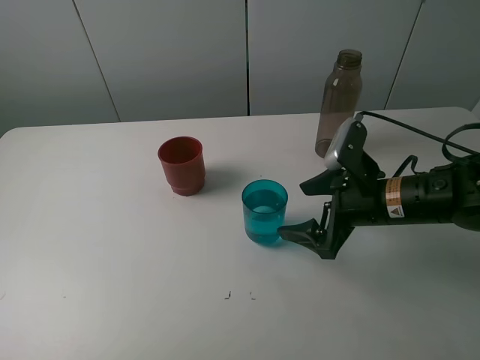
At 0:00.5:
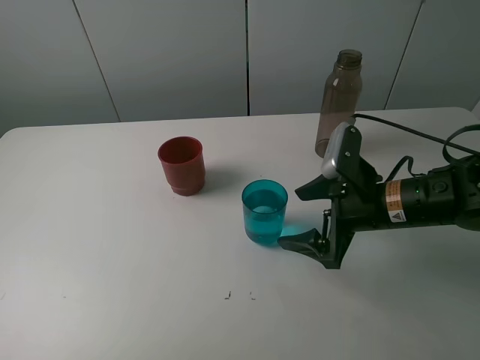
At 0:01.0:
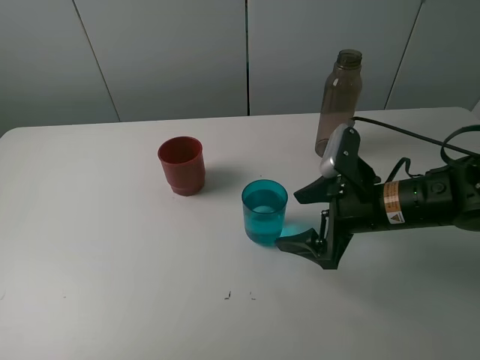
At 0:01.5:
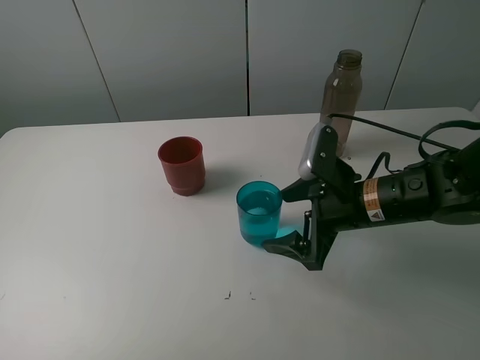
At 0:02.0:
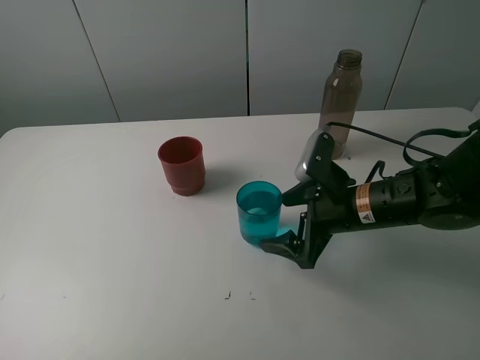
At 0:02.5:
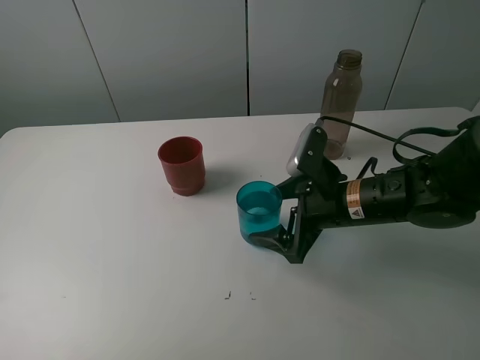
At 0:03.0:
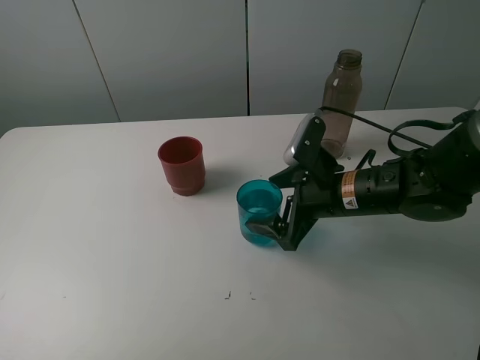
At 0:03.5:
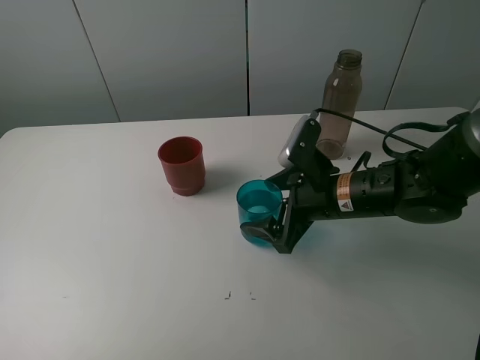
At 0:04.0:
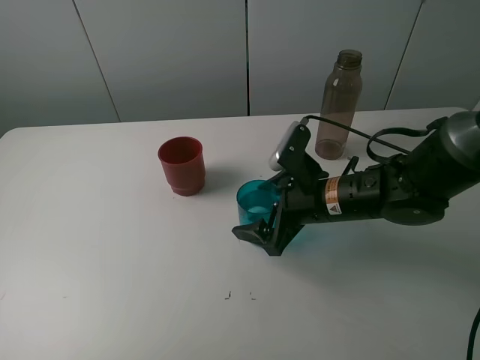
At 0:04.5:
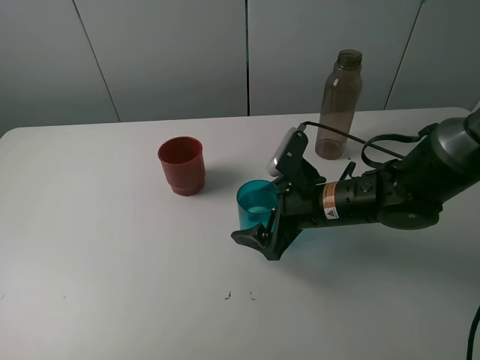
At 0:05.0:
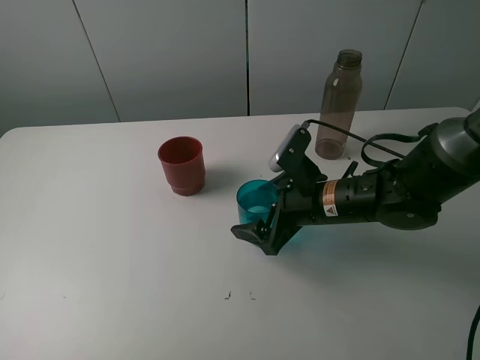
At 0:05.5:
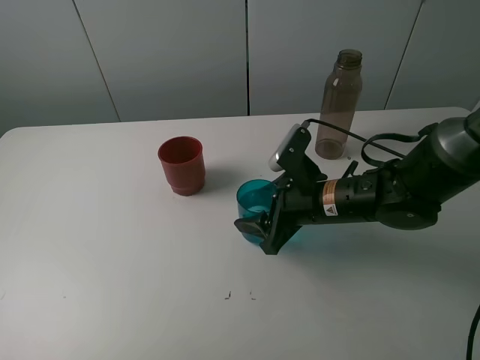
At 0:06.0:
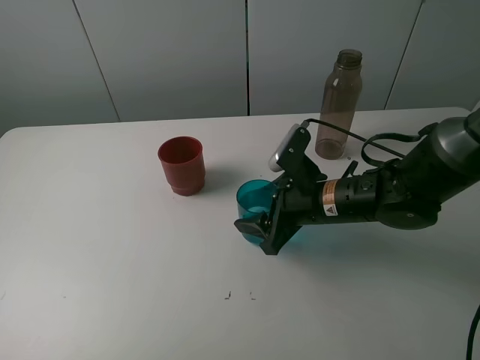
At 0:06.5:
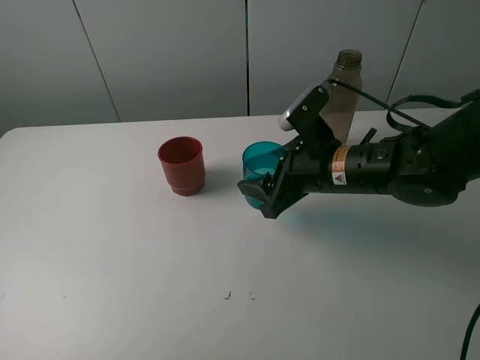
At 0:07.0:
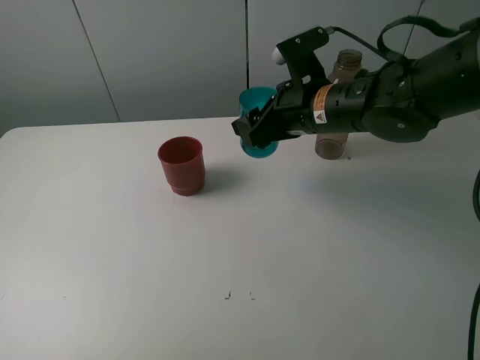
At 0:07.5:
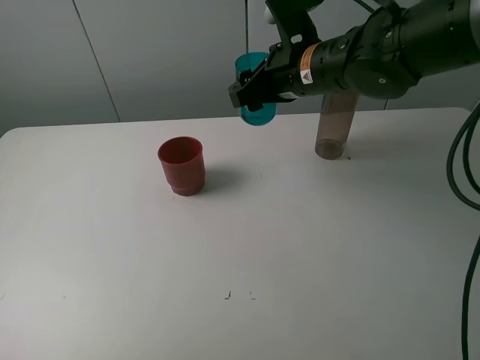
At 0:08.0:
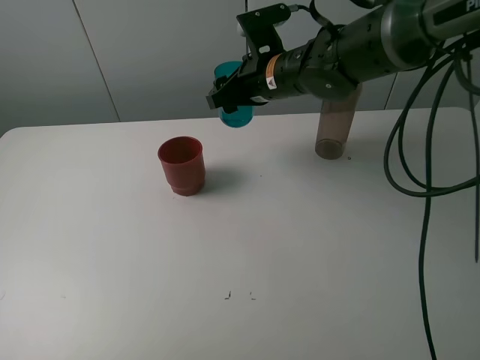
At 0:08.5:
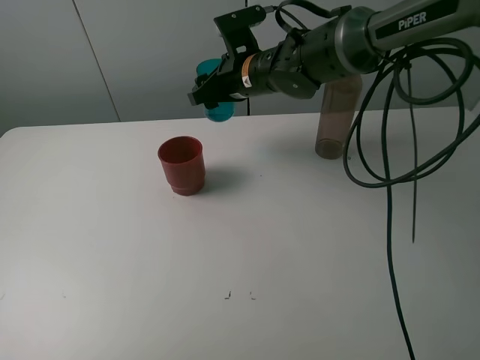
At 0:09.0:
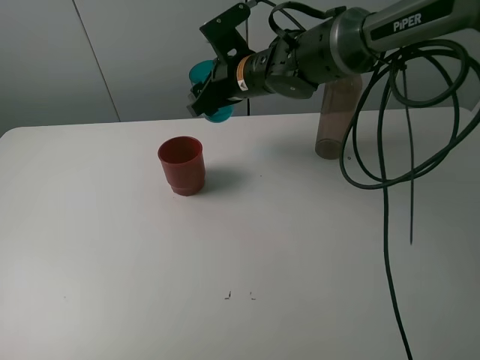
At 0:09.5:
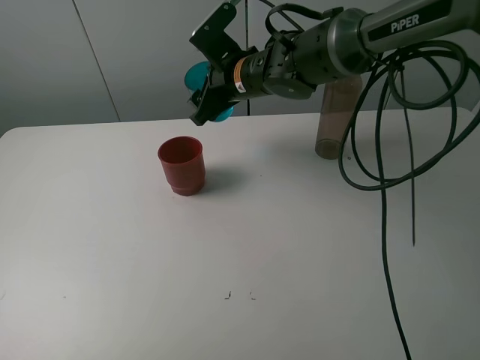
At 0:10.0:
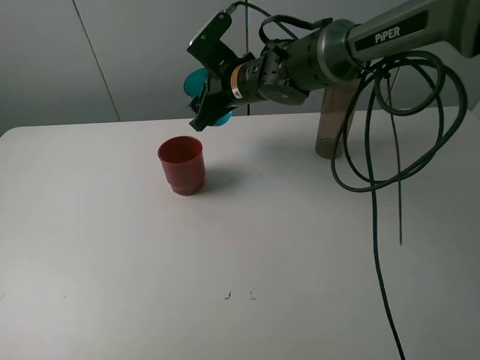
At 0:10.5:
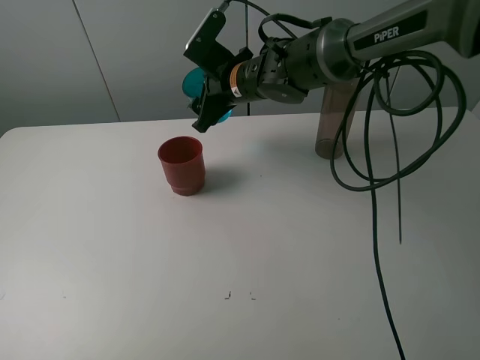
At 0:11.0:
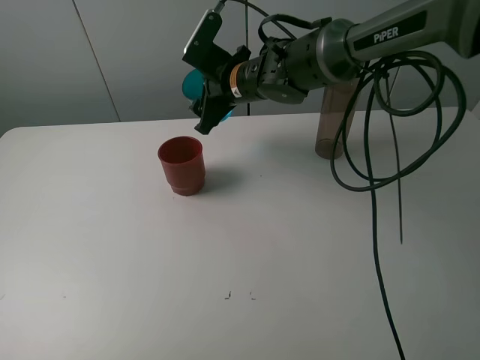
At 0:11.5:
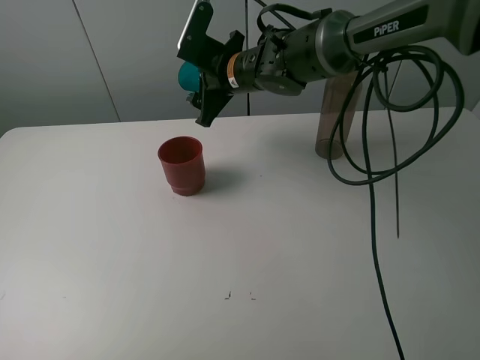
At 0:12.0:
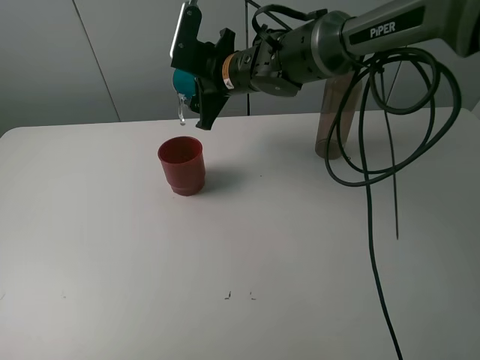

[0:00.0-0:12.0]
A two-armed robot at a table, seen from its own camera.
Task of the whole recording: pick up the bottle and pour water into the cup, then pick up the cup containing water and pour it into another cup.
Step, 0:00.0 to 0:05.5: Grasp the blue cup with the right gripper.
0:00.0 to 0:02.0: The grippers make only small movements.
0:02.0 to 0:04.0: There are only small adjustments of the grippers.
0:04.0 to 0:06.0: The right gripper closes up.
0:06.0 to 0:08.0: The right gripper moves forward, upward and to the left, about 20 cm.
0:08.0 to 0:10.0: The right gripper changes place by some 5 cm.

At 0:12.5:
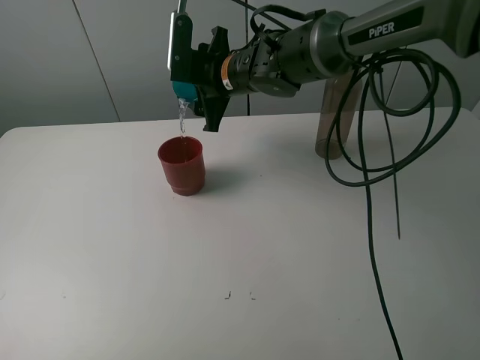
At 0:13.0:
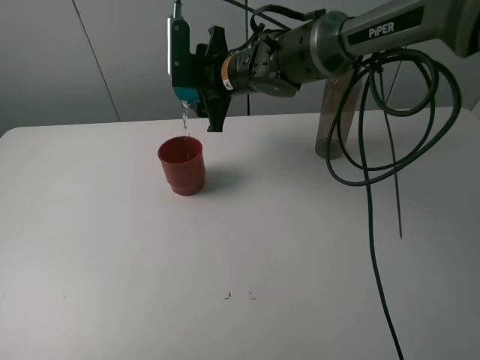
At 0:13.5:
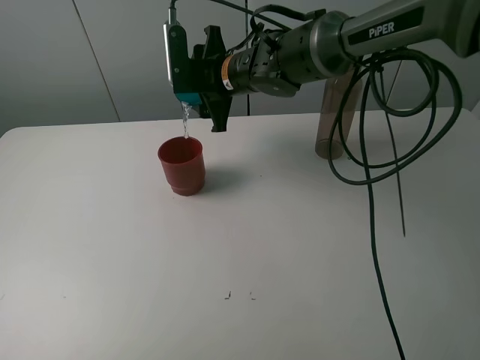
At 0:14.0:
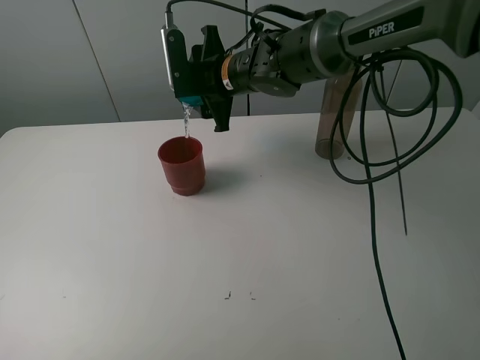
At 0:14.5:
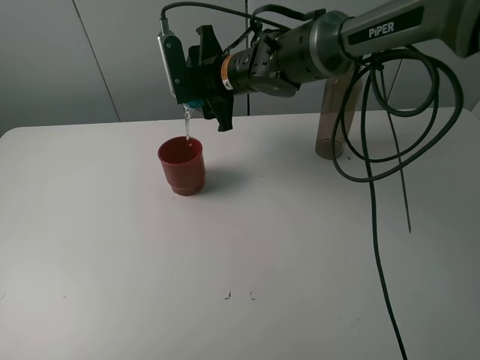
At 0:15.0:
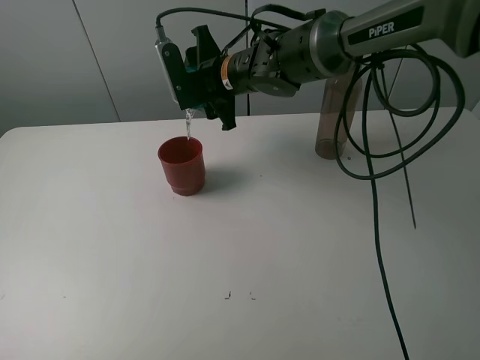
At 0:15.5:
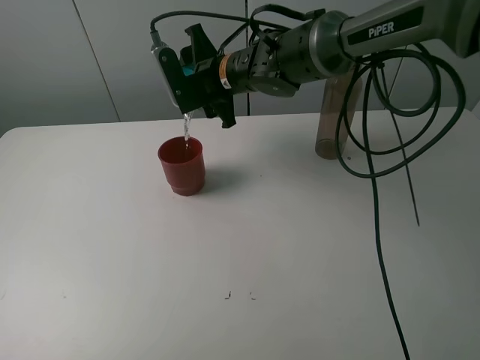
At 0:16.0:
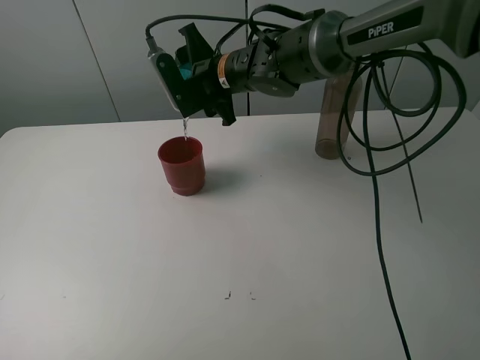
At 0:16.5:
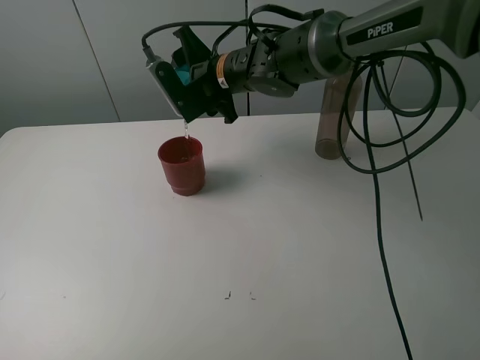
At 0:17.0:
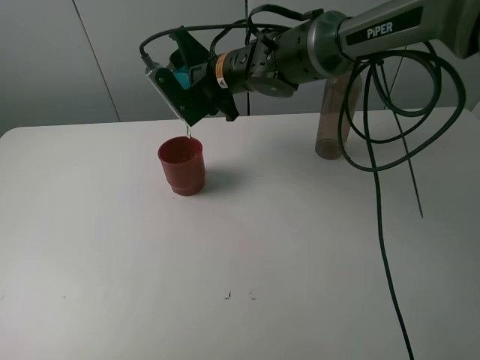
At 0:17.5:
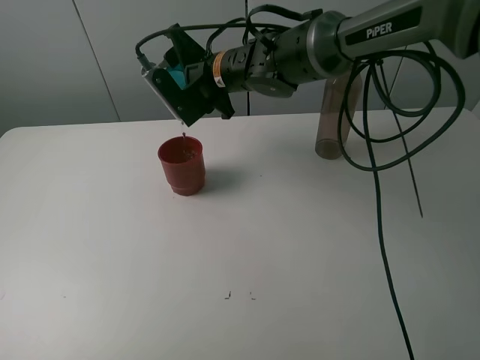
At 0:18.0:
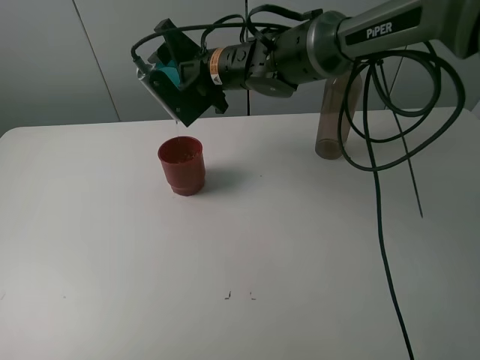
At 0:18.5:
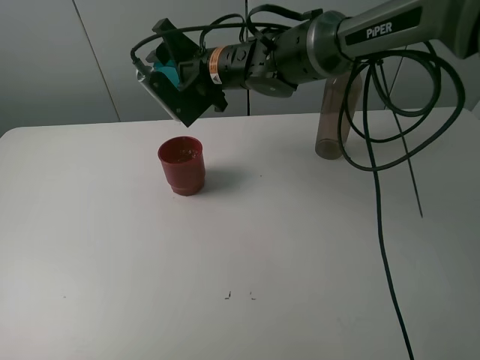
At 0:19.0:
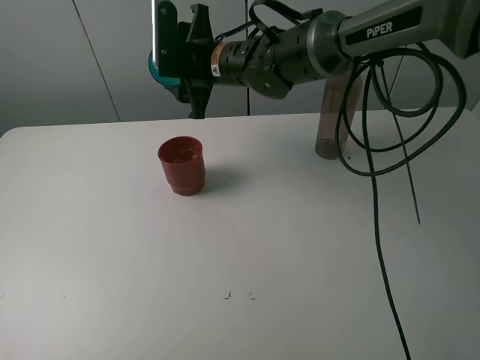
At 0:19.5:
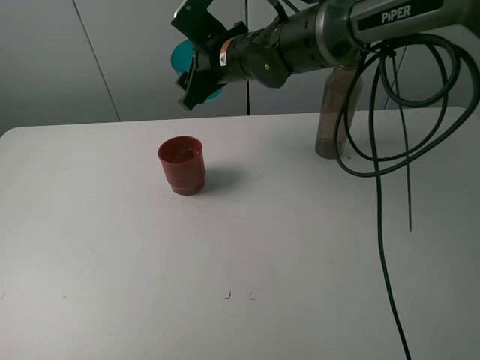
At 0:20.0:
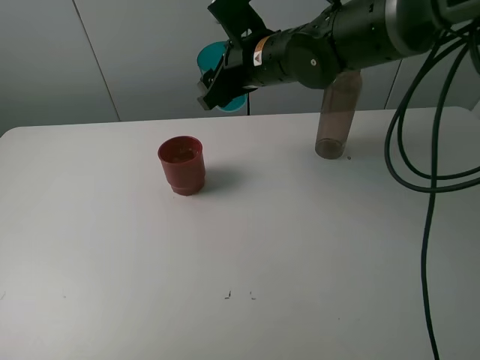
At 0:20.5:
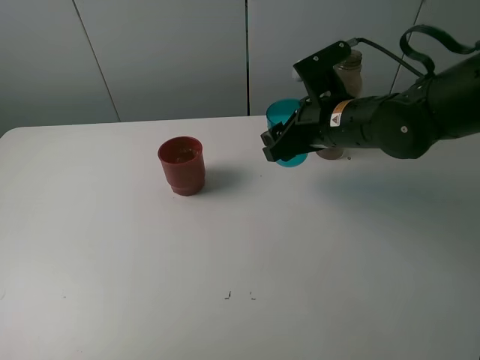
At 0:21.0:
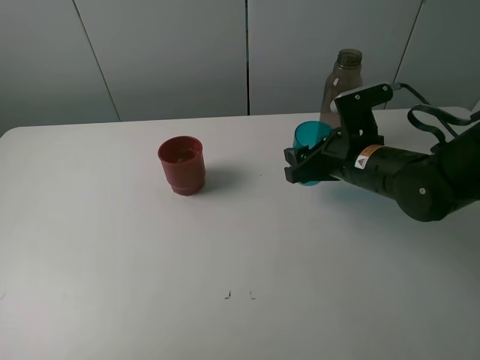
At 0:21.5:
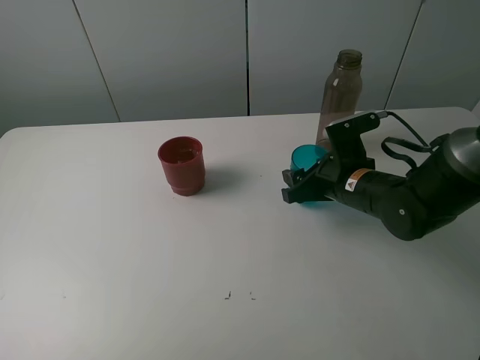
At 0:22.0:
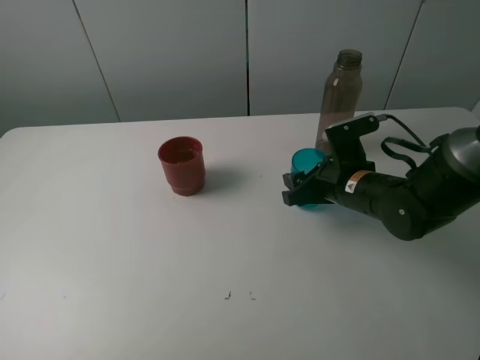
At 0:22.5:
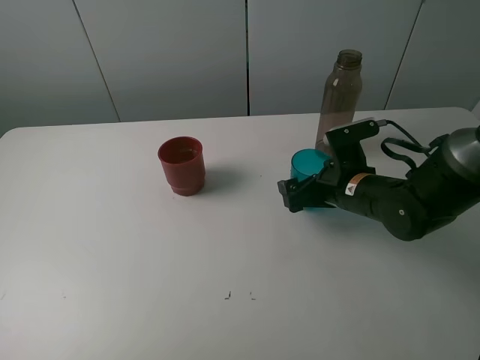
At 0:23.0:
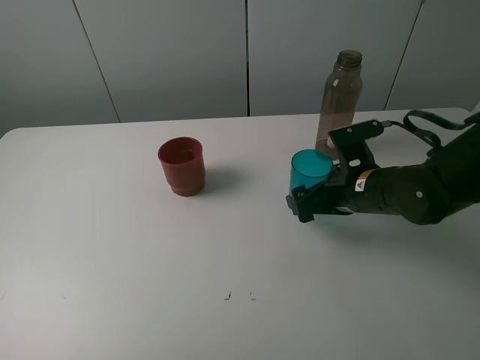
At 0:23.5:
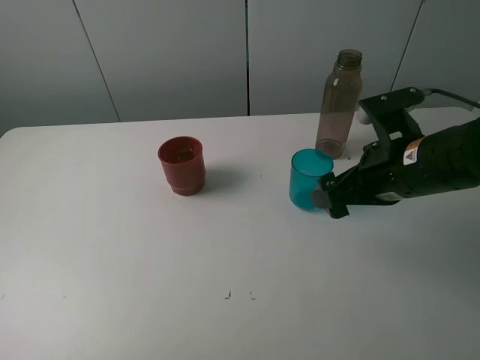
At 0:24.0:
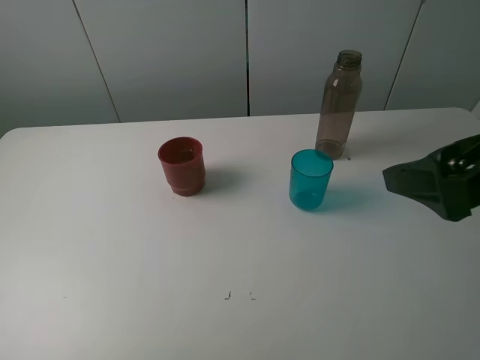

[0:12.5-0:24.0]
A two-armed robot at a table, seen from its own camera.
Task of the whole recording: pick up the bottle and pour water into the cup, then pick up the cup containing water and pour it into another cup.
Step, 0:12.5 to 0:18.0: Pour water from blue cup to red cup with the right gripper.
Step, 0:18.5 to 0:22.5: Place the blue cup with the right gripper.
0:16.5 to 0:18.5: The grippers stay close to where they were, moving slightly.
0:18.5 to 0:20.0: The right gripper goes about 5 cm to the right.
0:20.0 to 0:22.0: The right gripper is displaced downward, to the right and backward by about 20 cm.
0:22.0 to 0:24.0: The right gripper heads upward and backward, covering some 25 cm, and opens its fingers.

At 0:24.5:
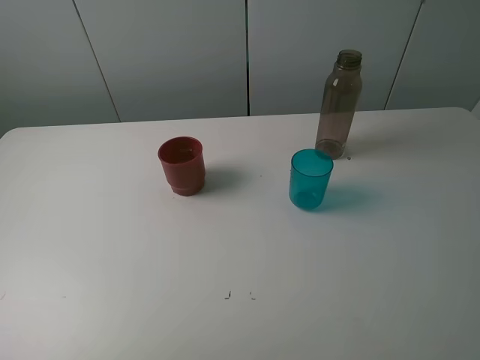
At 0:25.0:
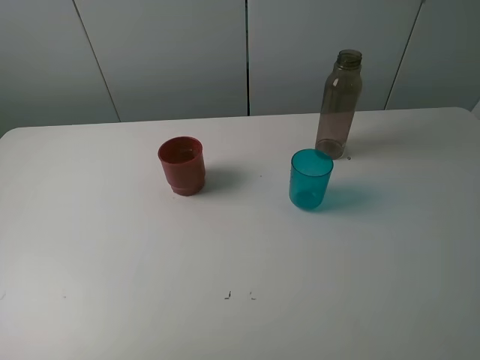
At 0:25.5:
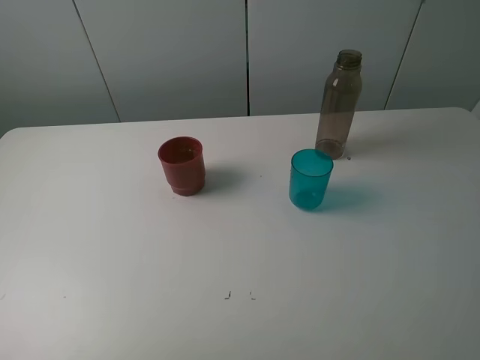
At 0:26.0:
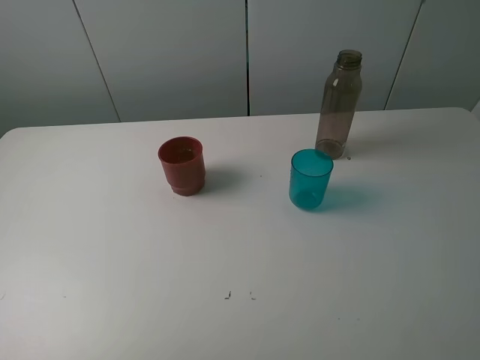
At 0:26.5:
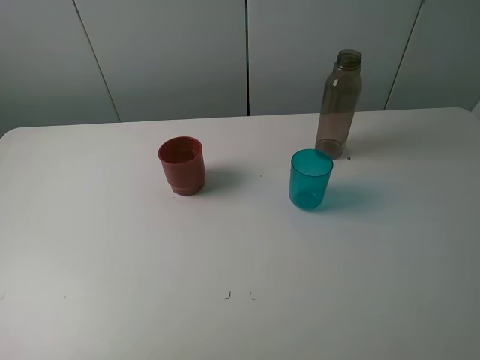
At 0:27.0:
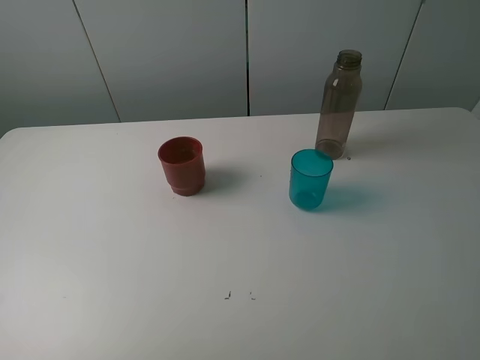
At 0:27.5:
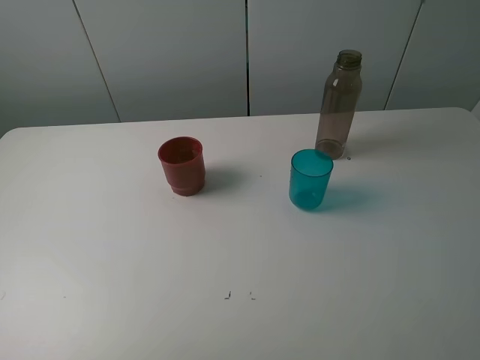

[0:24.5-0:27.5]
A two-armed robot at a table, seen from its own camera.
Task of the whole recording: pick up the bottle and pour water into the cup, then pick up the cup containing water and pour it into another cup.
0:26.0 to 0:27.5: Neither gripper changes place.
